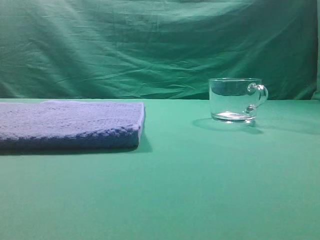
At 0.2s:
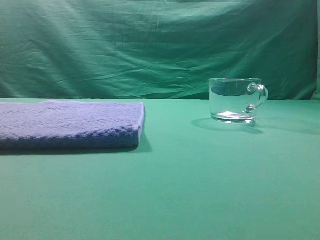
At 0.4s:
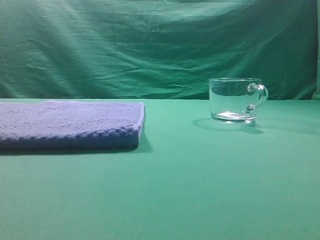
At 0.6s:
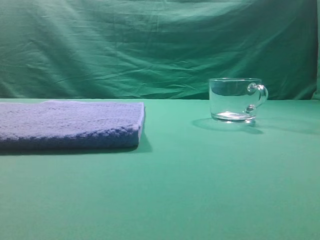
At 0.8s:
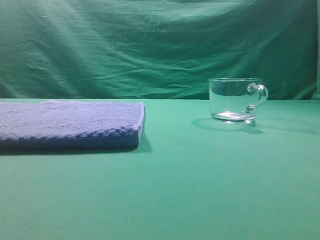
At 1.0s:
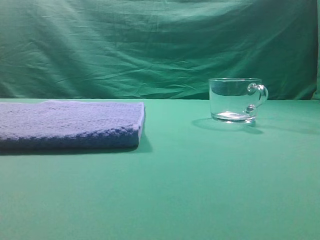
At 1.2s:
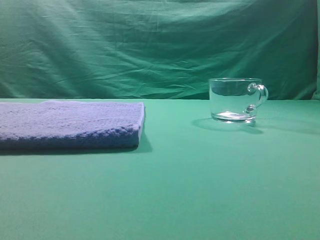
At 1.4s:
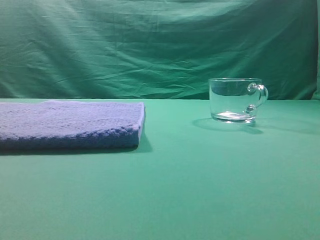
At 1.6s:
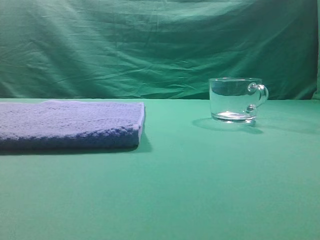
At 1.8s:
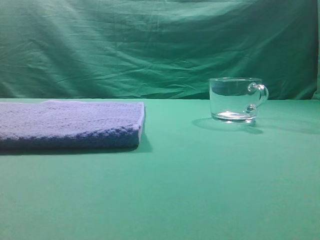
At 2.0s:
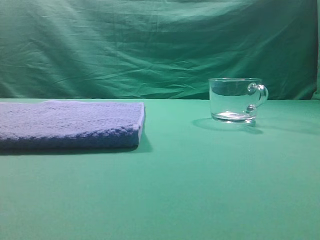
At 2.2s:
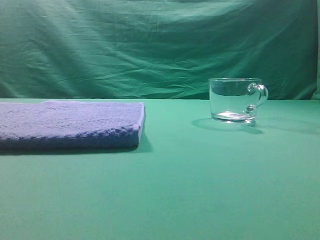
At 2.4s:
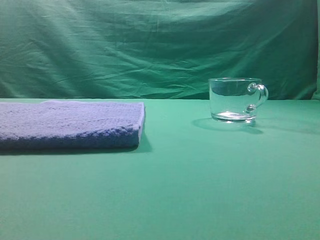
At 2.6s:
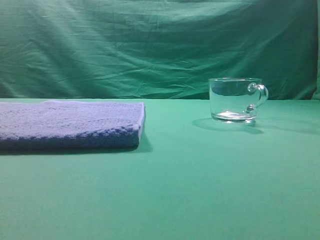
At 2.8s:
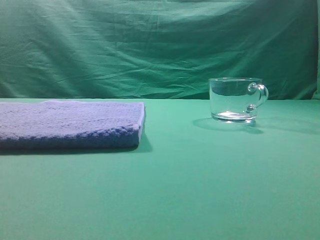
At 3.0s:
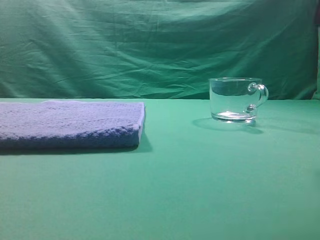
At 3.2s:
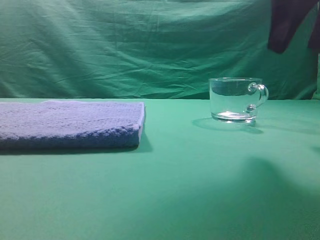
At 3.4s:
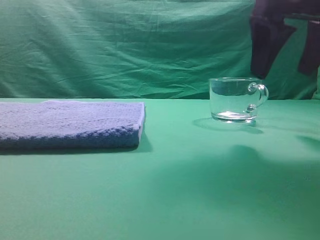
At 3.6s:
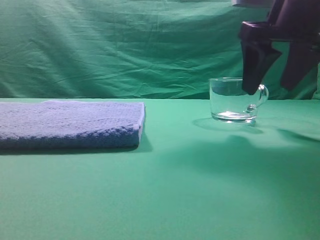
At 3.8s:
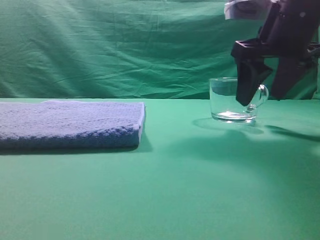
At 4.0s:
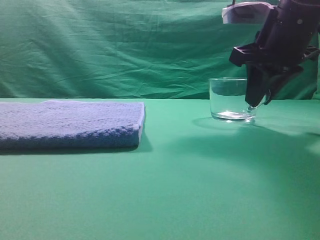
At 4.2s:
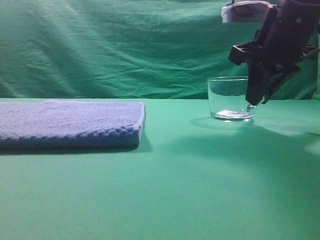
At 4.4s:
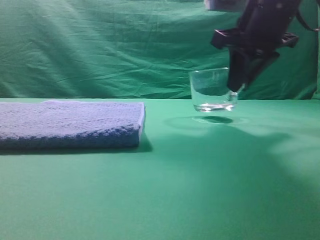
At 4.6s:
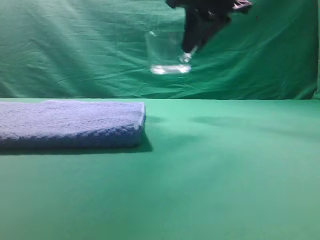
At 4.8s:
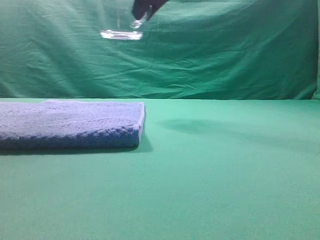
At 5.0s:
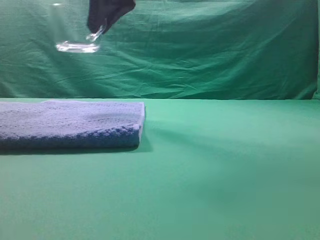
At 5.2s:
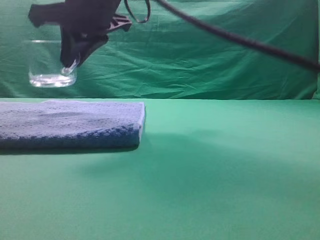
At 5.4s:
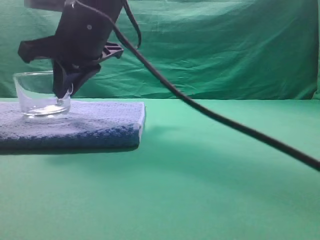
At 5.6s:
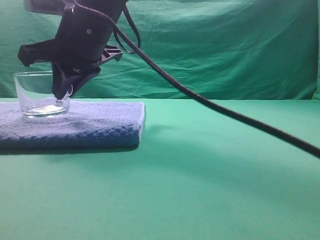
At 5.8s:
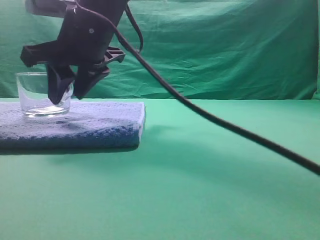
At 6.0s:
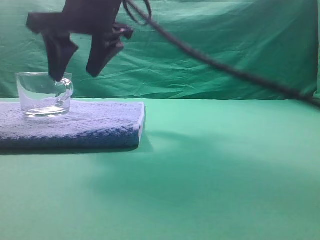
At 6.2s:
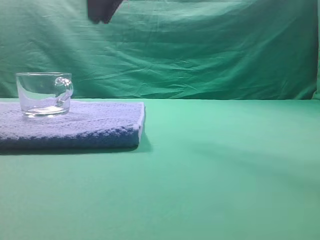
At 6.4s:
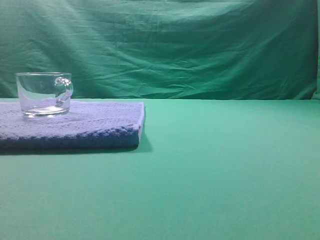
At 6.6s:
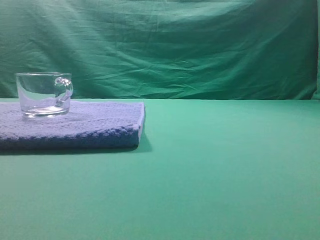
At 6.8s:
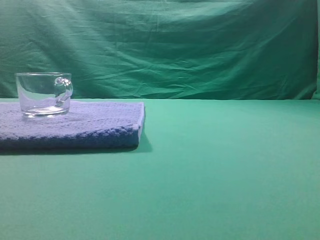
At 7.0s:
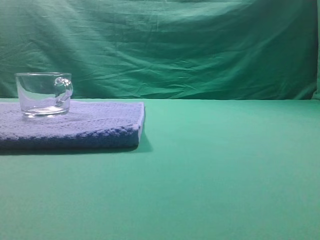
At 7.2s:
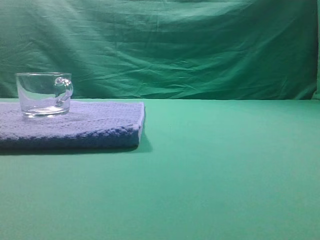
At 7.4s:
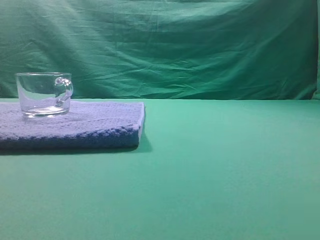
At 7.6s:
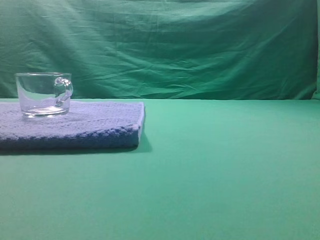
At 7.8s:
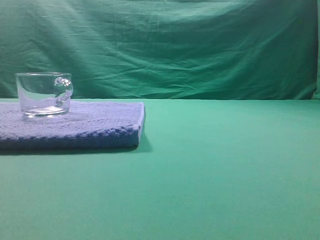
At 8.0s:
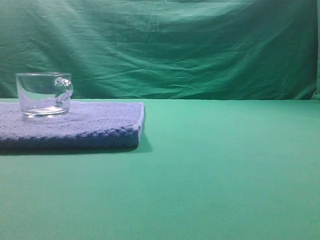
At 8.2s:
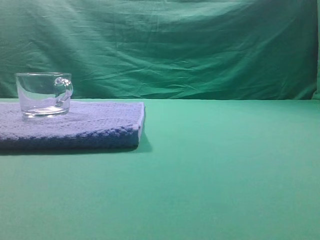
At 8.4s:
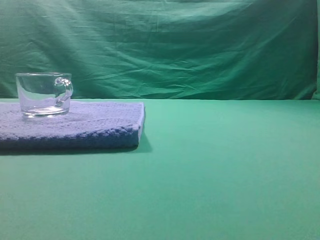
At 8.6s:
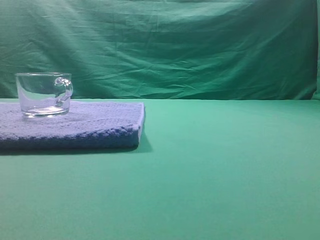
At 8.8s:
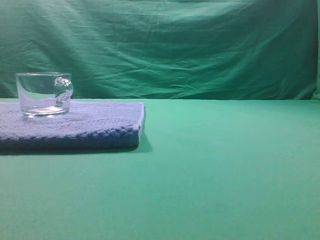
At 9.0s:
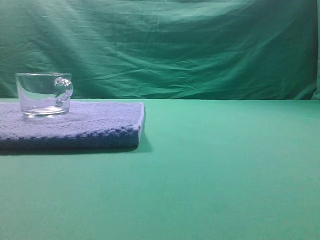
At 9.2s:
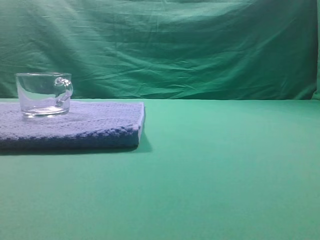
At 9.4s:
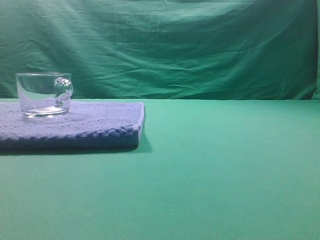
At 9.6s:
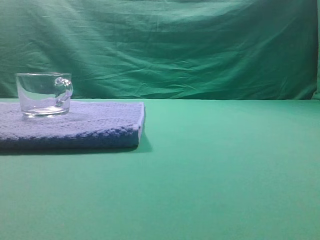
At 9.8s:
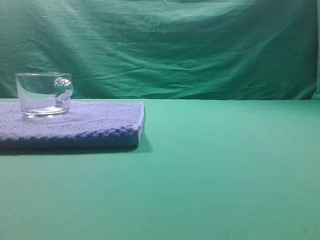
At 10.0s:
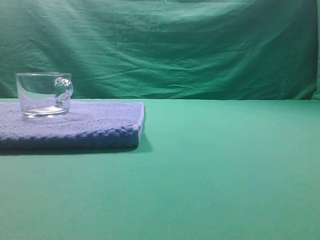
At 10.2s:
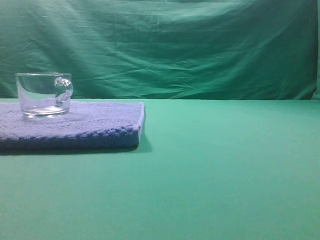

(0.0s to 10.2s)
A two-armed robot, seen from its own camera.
Task of the whole recording: grasp the transparent glass cup and place it within the blue towel.
Step, 0.0s - 4.4s: Grasp the transparent glass cup.
Step, 4.6s - 6.0s: Place the glass cup on the blue zone.

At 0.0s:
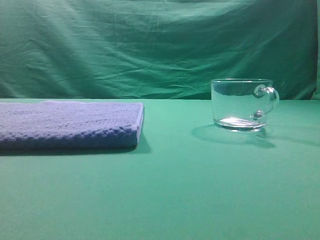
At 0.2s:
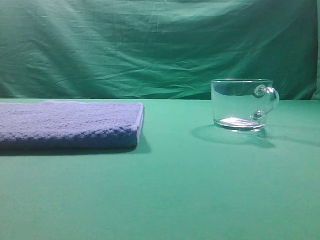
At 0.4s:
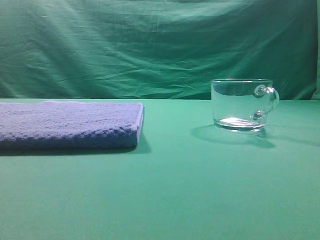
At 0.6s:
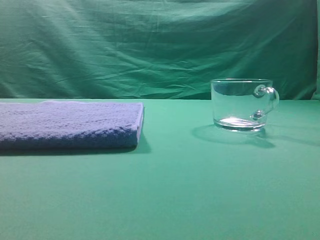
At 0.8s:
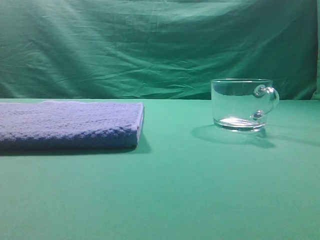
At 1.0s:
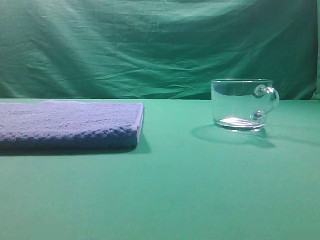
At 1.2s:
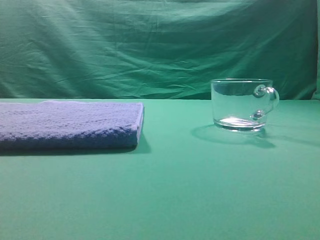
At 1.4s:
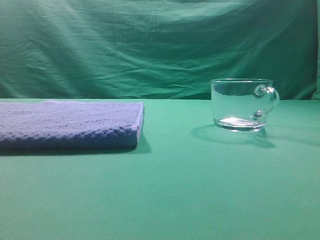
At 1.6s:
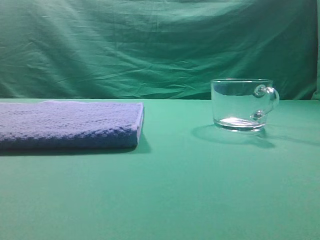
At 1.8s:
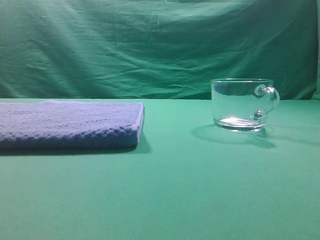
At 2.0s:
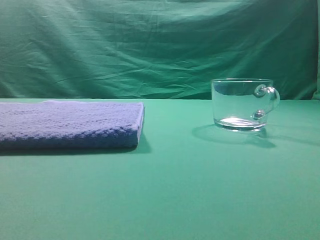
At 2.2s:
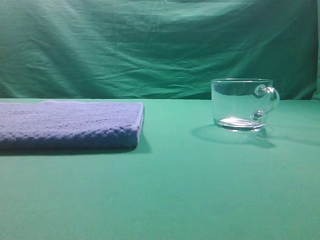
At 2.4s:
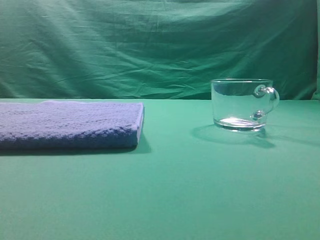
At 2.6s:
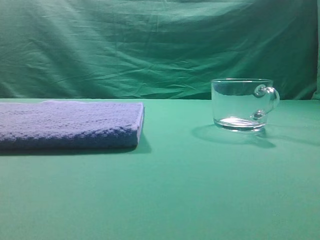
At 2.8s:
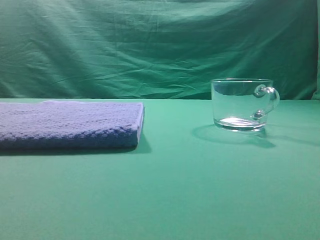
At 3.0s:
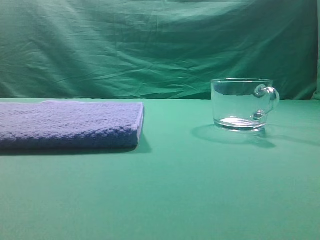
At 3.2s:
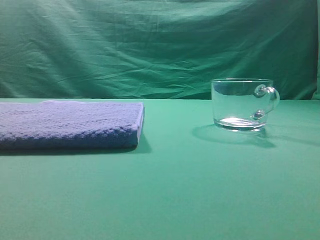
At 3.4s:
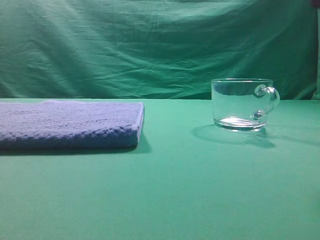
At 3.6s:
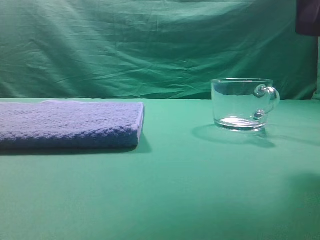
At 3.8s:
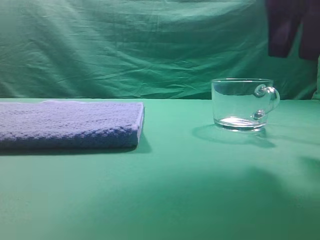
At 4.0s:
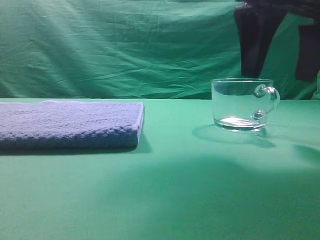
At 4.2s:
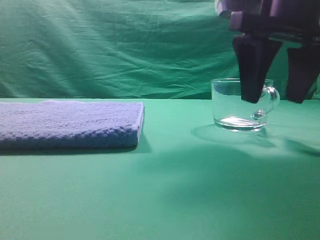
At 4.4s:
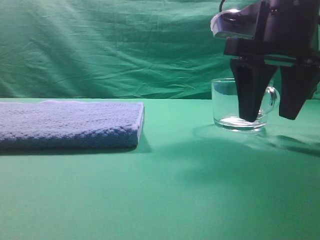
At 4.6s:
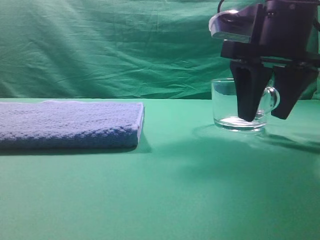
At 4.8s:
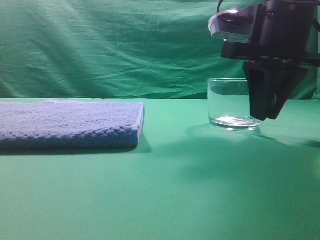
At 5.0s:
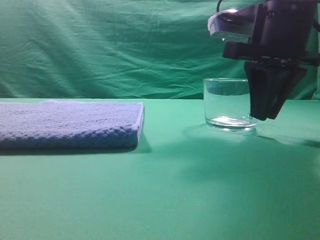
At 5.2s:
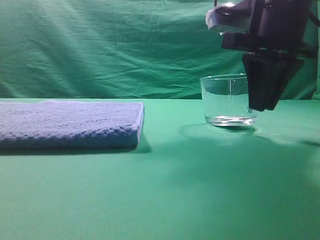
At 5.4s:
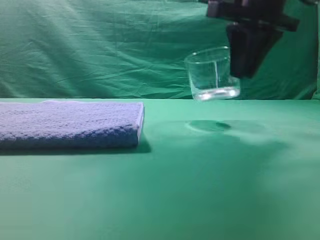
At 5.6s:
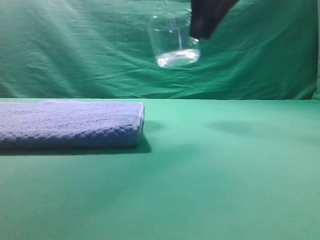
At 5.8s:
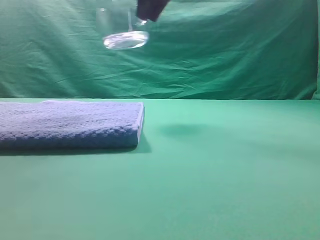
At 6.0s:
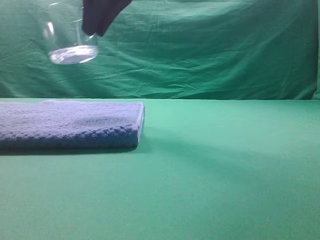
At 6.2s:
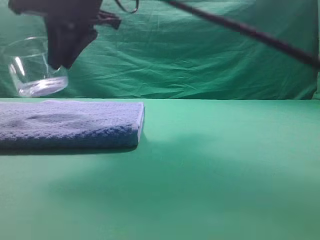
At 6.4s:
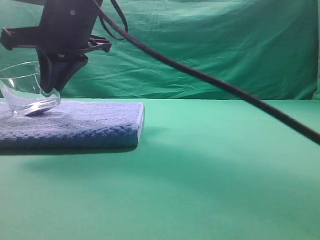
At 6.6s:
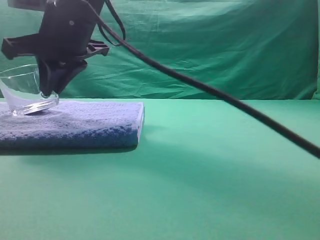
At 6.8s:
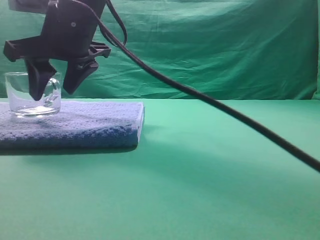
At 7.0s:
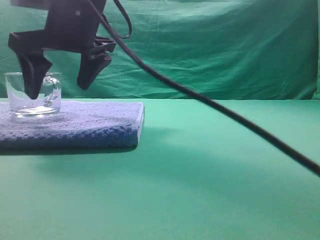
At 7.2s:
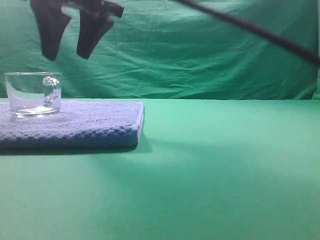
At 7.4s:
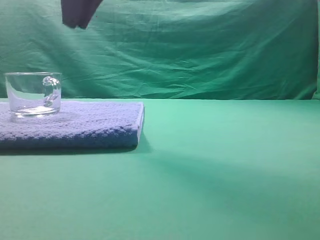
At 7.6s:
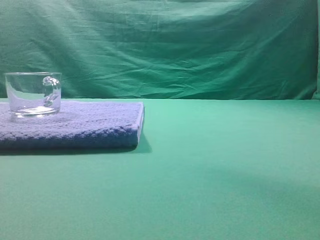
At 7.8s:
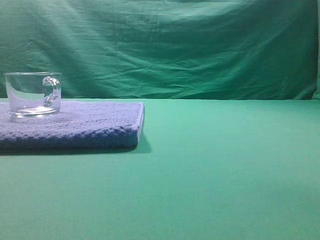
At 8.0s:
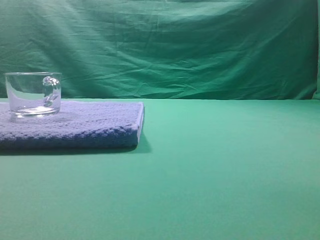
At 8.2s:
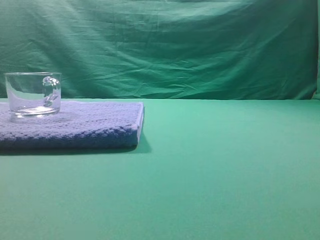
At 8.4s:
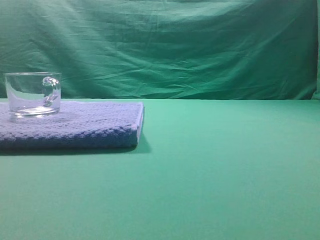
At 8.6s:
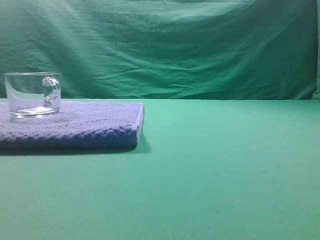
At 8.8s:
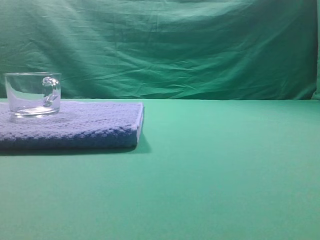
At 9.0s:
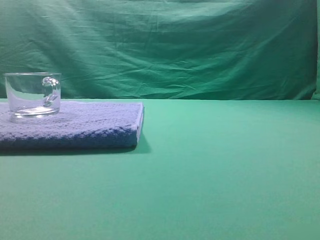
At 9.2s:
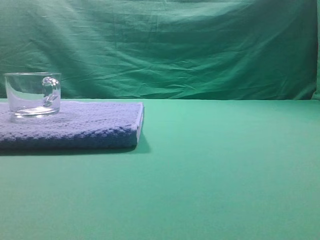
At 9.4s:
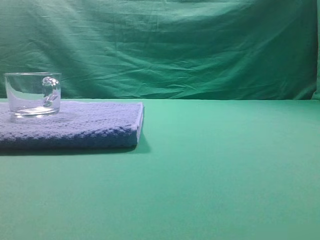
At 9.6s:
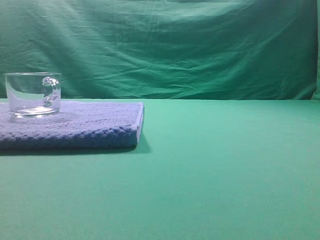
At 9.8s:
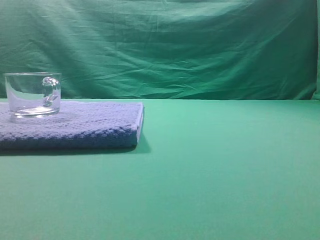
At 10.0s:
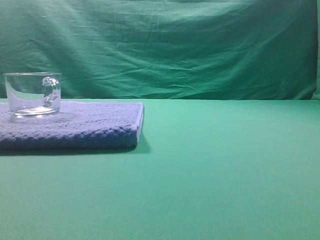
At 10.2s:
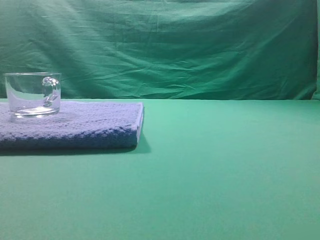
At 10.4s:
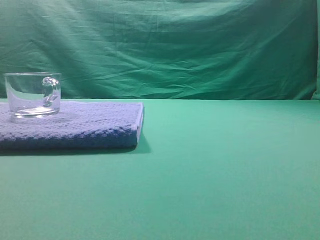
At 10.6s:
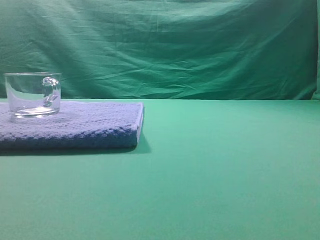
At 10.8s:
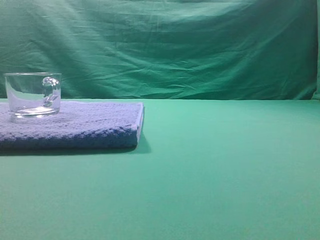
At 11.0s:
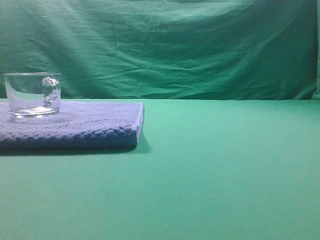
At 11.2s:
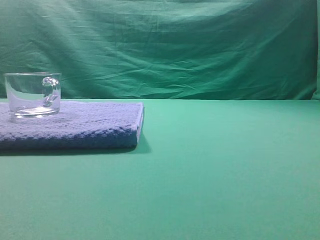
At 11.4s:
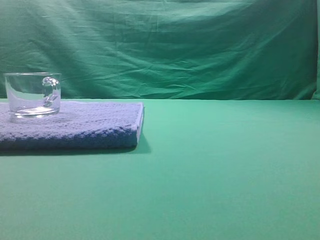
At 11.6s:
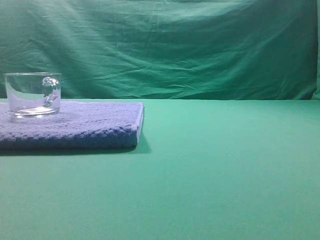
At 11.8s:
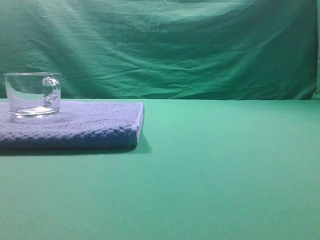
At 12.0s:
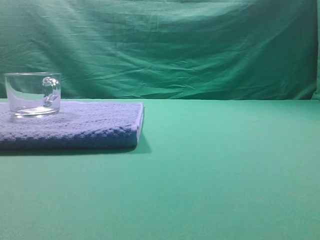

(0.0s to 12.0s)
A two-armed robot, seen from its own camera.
Task of the whole recording: grasp the transparent glass cup and place it within the blue towel.
Step, 0.0s - 4.4s: Grasp the transparent glass cup.
Step, 4.6s - 6.0s: Place the glass cup on the blue zone.
